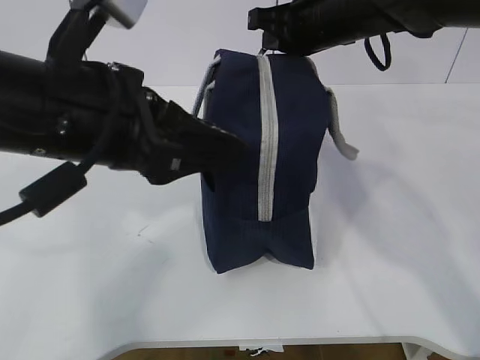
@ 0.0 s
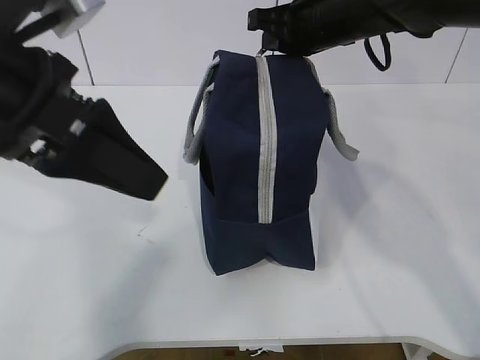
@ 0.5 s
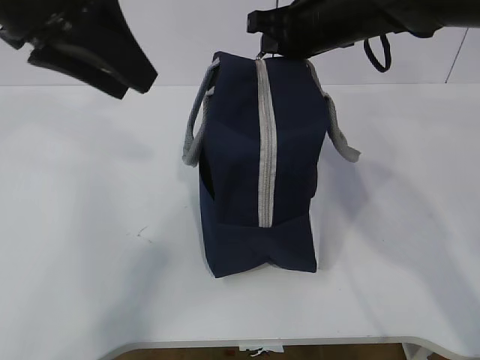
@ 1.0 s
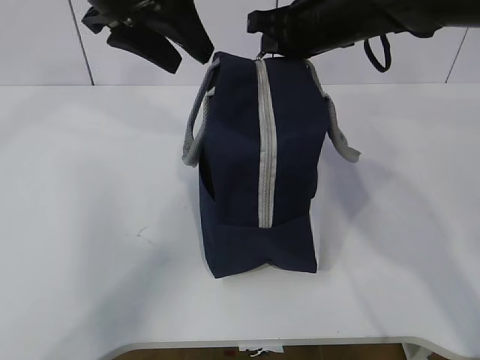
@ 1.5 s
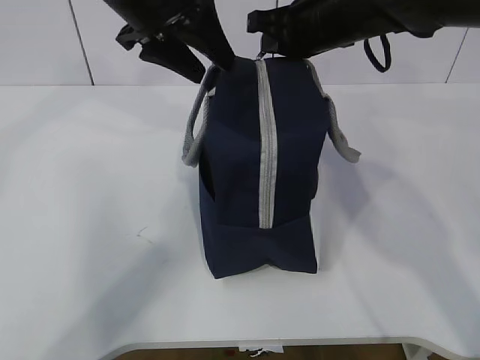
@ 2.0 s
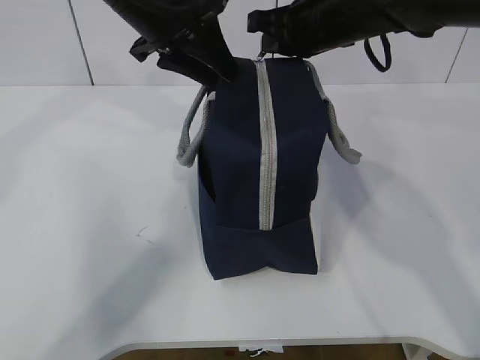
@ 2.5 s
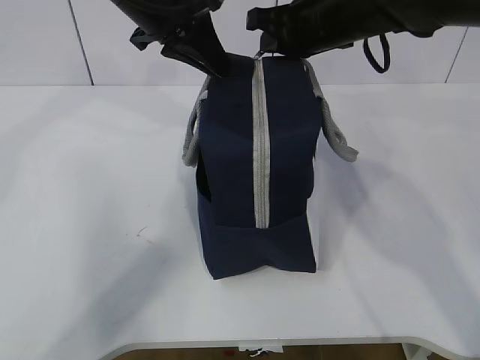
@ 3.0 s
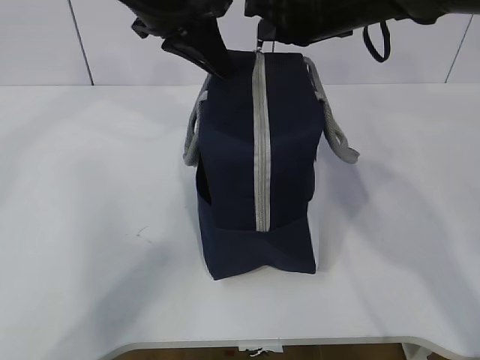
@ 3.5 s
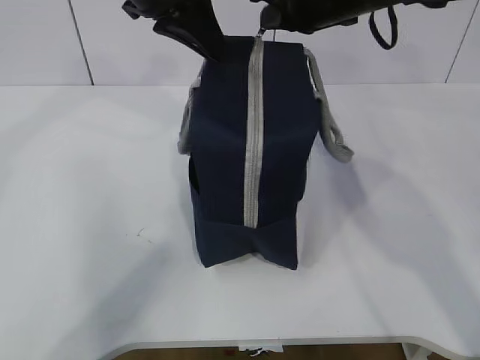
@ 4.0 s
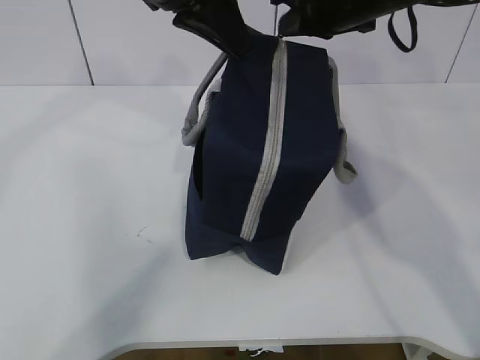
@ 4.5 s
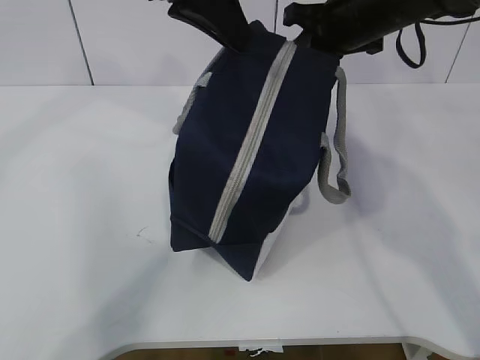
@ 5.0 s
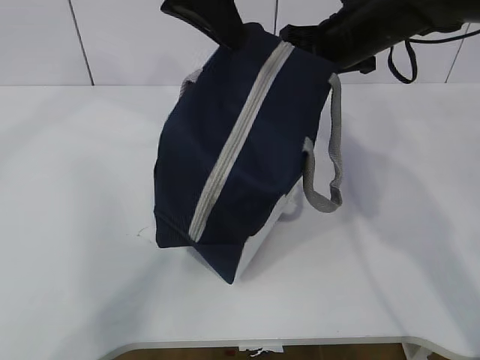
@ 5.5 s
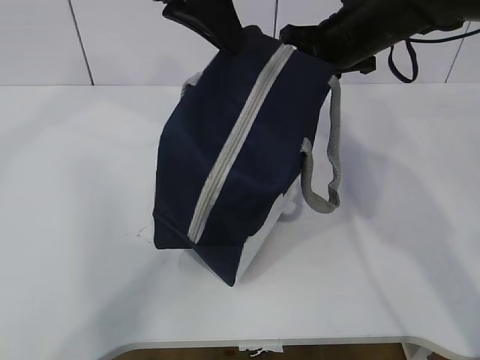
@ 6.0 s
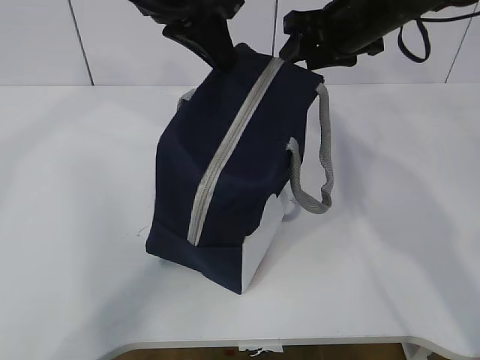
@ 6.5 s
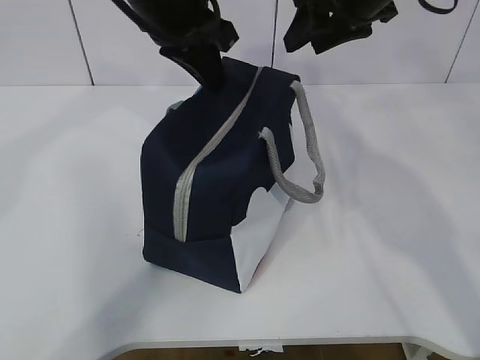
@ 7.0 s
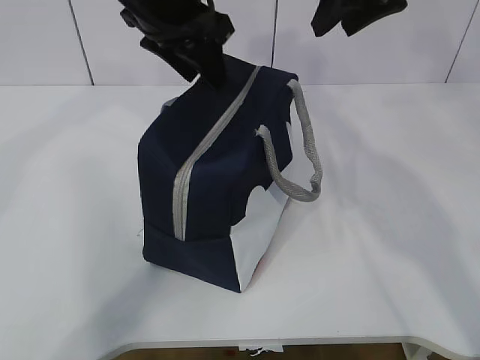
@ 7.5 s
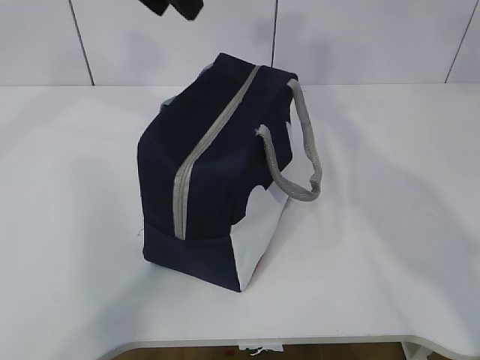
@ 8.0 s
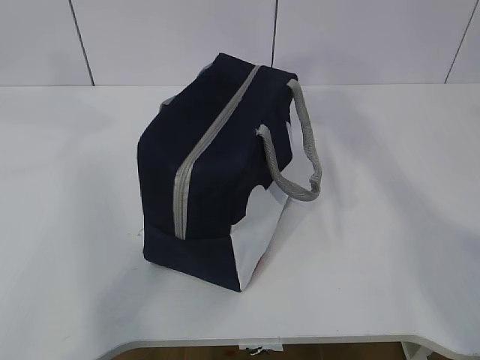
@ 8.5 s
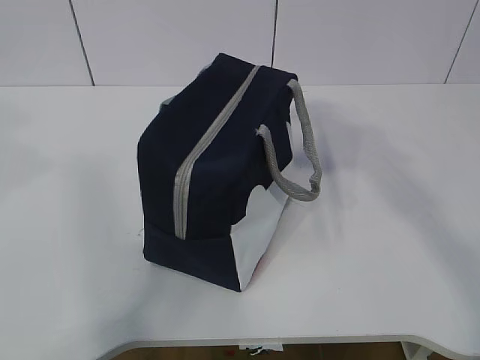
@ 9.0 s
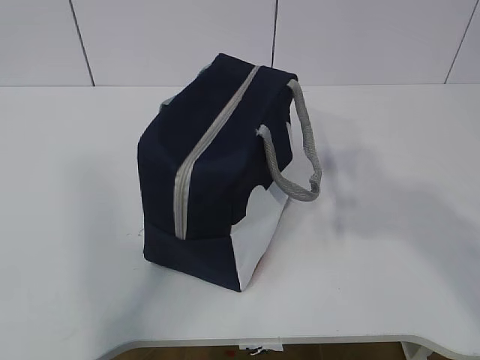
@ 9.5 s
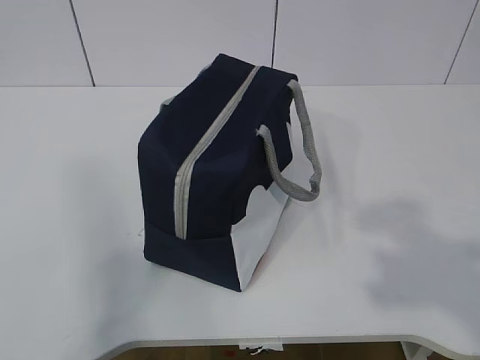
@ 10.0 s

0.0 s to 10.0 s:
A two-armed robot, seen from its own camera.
0.0 to 2.0 s: The left gripper goes roughly 15 cm forward.
2.0 to 4.0 s: The left gripper closes its fingers.
4.0 to 6.0 s: The right gripper ends up some 5 cm from where it was.
6.0 to 8.0 s: The left gripper moves about 5 cm, and opens its fingers; the right gripper goes about 20 cm upward and backward, and opens up.
8.0 to 10.0 s: The right gripper goes roughly 35 cm backward, while the left gripper heads backward and to the left, covering some 40 cm.

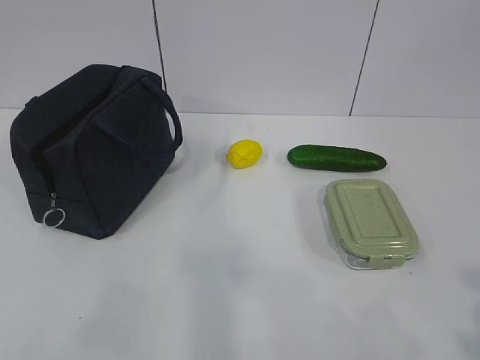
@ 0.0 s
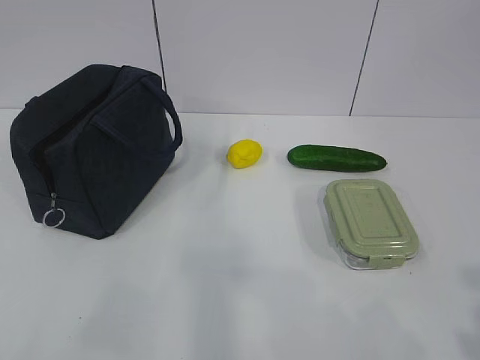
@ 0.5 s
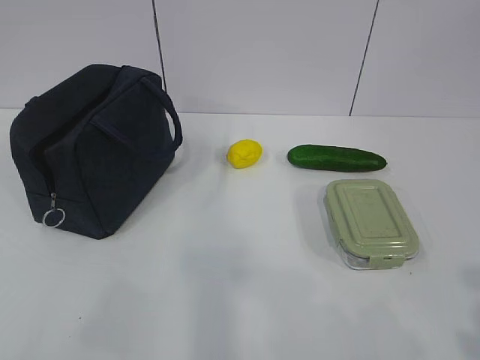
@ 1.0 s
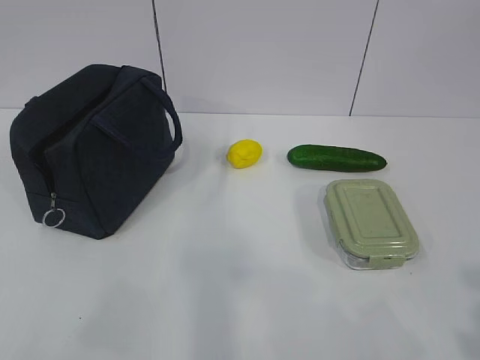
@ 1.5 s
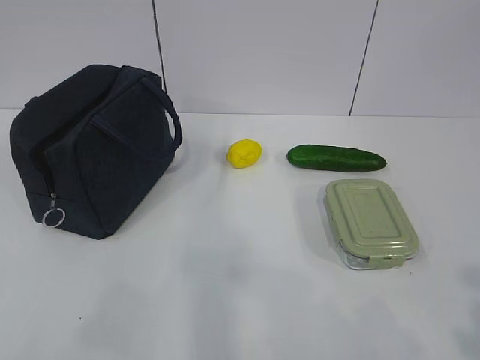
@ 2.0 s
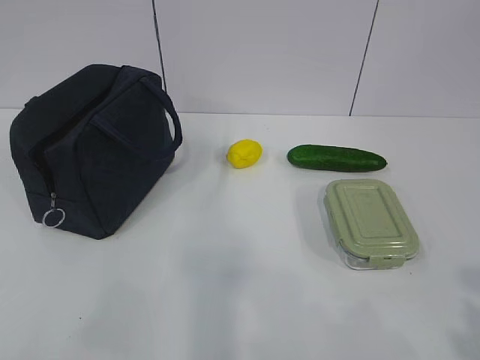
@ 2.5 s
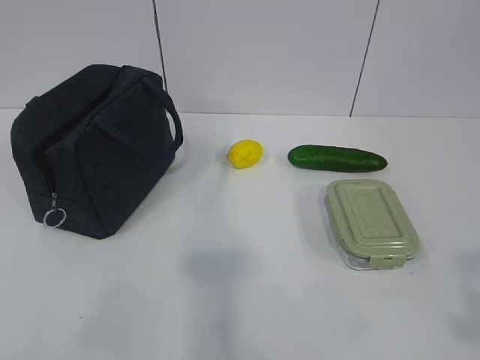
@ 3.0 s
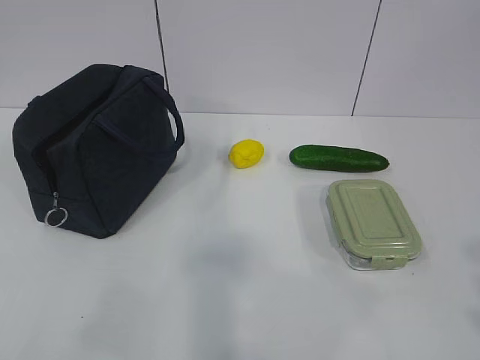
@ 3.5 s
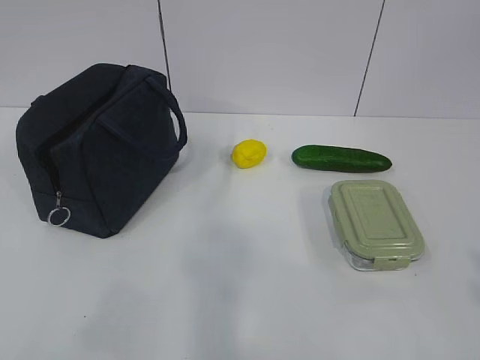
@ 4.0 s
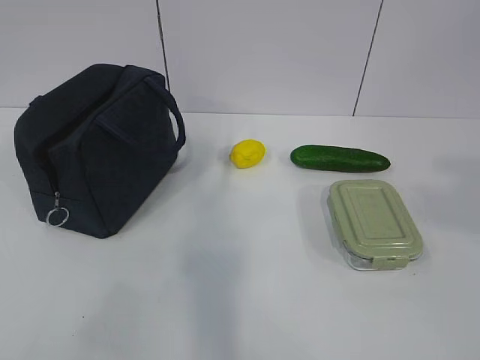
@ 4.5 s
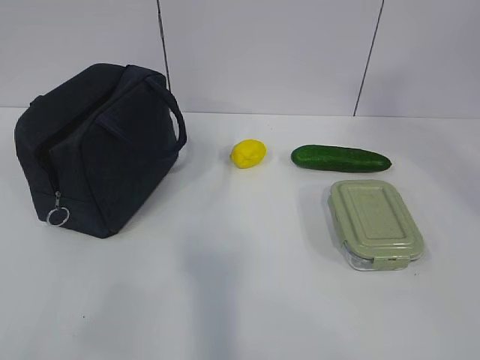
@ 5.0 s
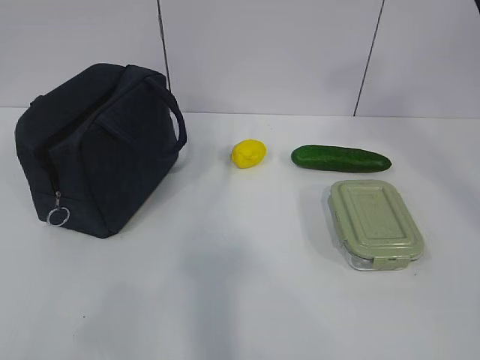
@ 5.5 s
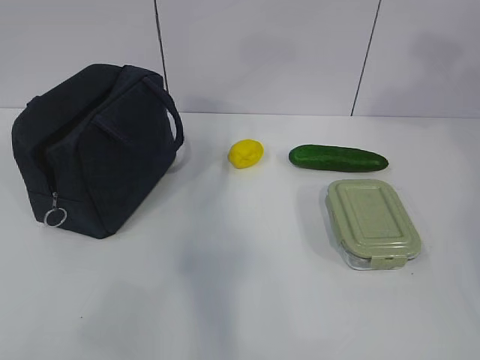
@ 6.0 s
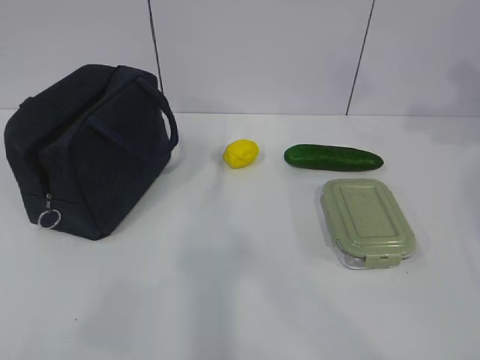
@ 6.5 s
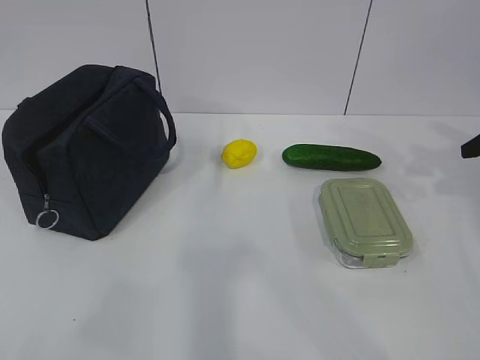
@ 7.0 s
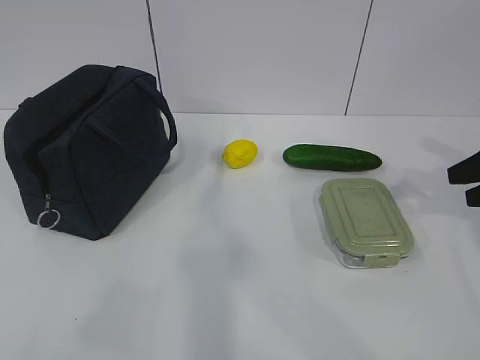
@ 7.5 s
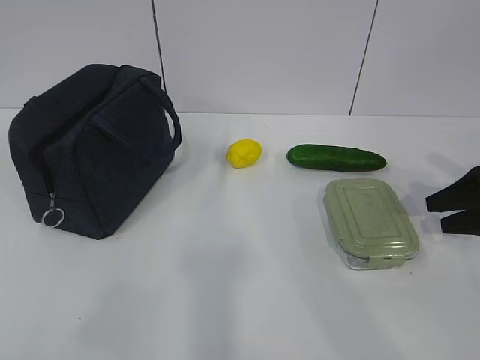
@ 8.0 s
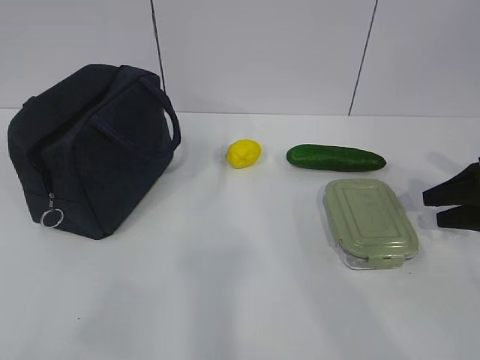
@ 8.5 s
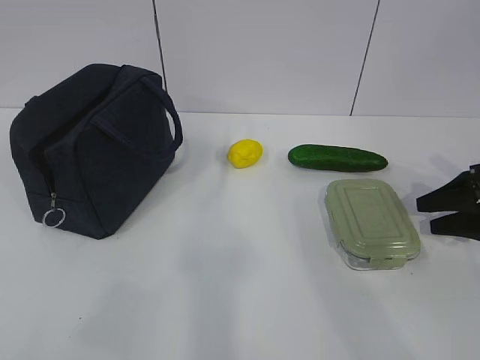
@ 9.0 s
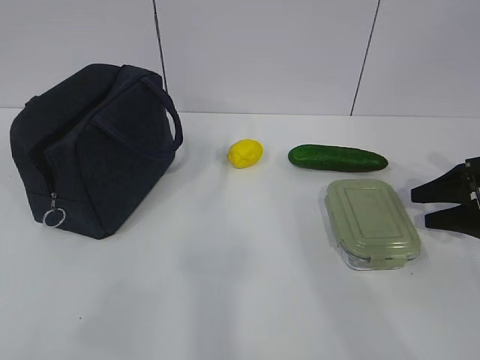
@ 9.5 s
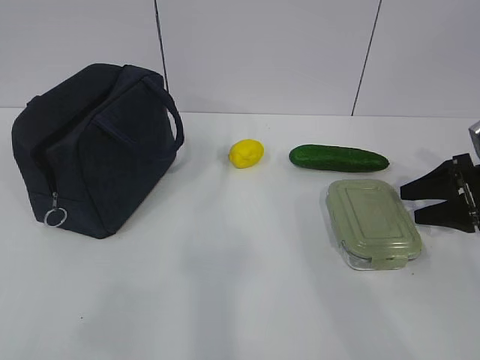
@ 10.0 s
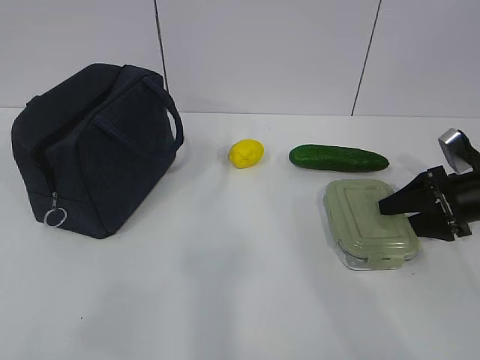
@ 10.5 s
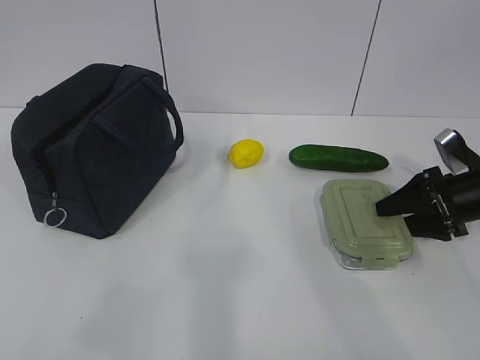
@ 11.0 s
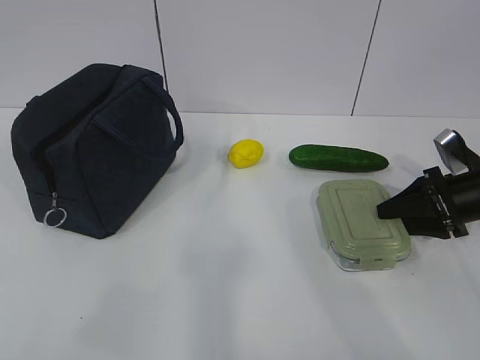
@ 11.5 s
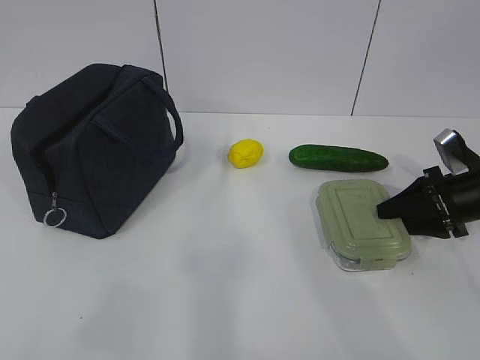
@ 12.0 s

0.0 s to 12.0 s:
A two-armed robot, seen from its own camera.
2.0 to 4.0 s: The right gripper is displaced upward by approximately 10 cm.
4.0 to 6.0 s: The right gripper heads forward, covering about 30 cm.
6.0 to 8.0 s: The right gripper shifts some 30 cm downward.
8.0 to 10.0 s: The grippers make only small movements.
10.0 to 12.0 s: The grippers move only a little.

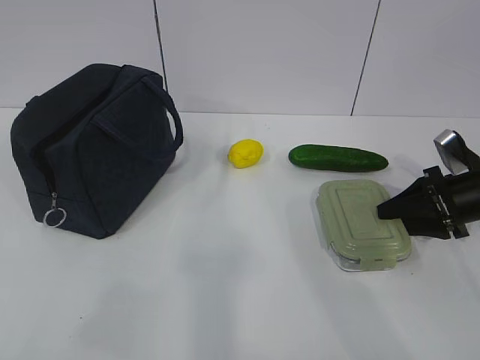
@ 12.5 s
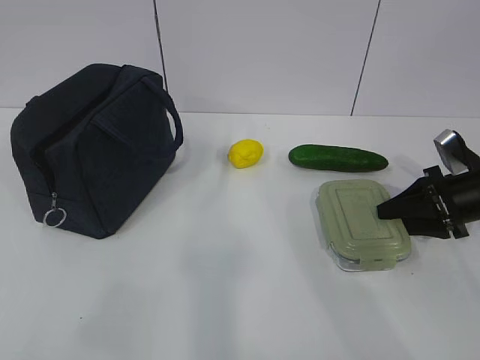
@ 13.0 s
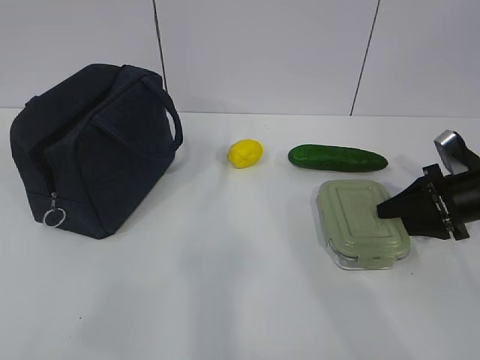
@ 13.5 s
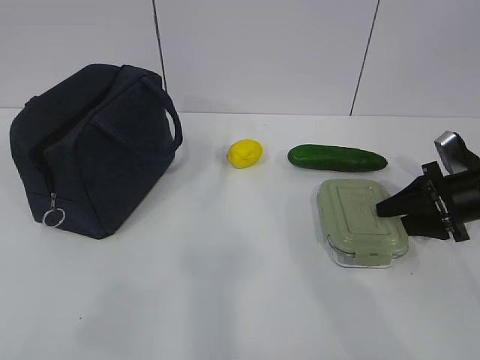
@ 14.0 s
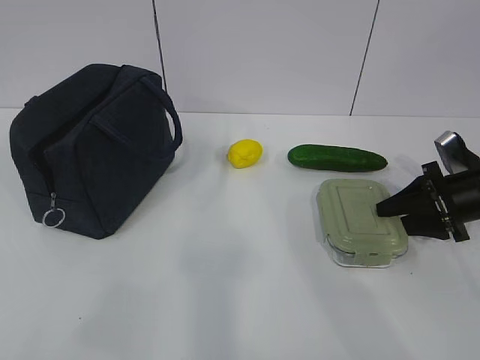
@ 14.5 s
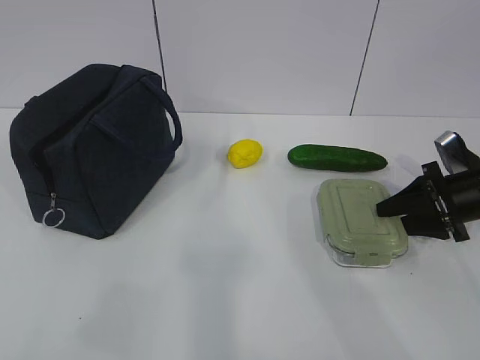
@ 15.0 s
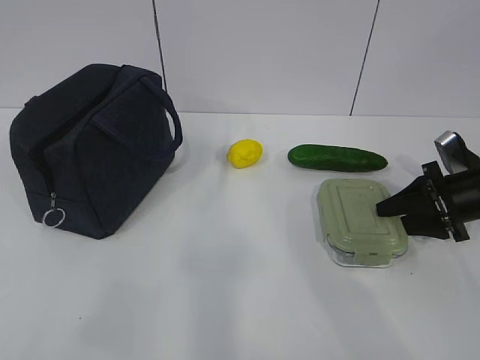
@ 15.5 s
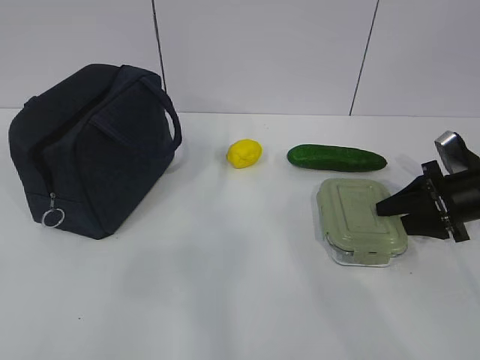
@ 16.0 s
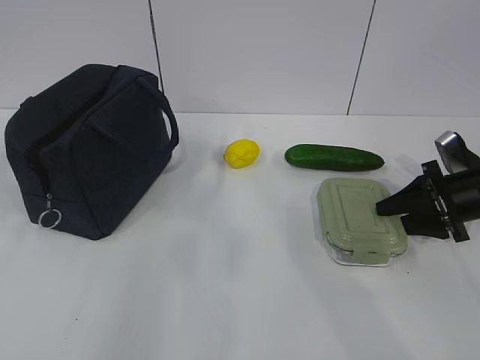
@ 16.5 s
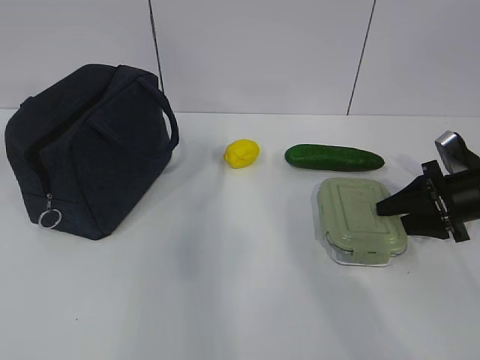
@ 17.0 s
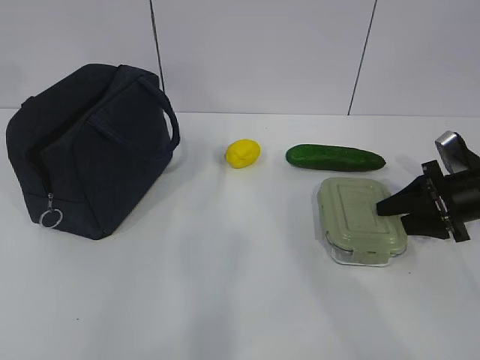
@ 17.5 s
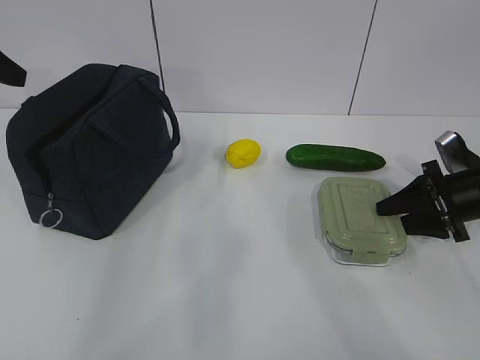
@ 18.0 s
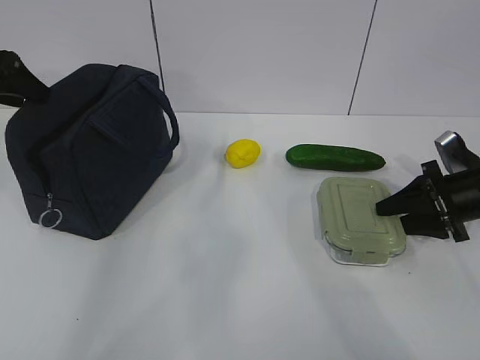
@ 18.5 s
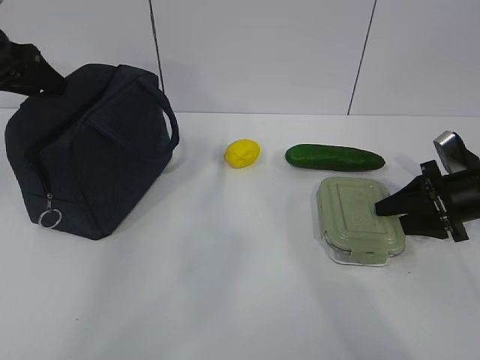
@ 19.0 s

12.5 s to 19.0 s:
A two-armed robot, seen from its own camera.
12.5 to 14.5 s: The grippers stay close to where they were, moving slightly.
14.5 to 17.0 s: The left gripper moves forward and upward, about 25 cm.
17.0 to 19.0 s: The left gripper travels forward and downward by approximately 25 cm.
